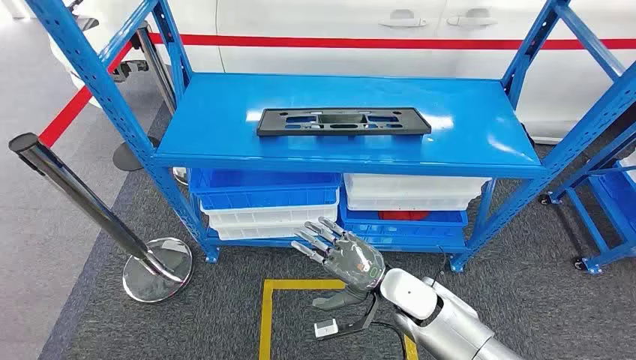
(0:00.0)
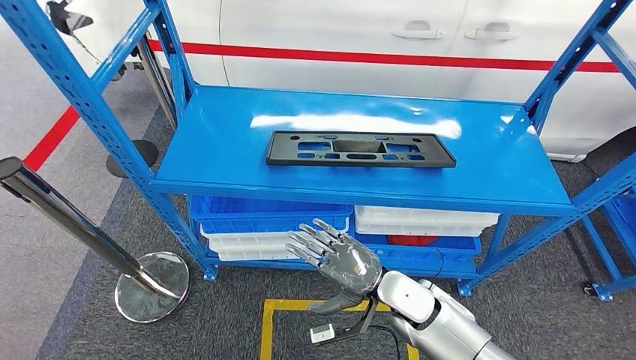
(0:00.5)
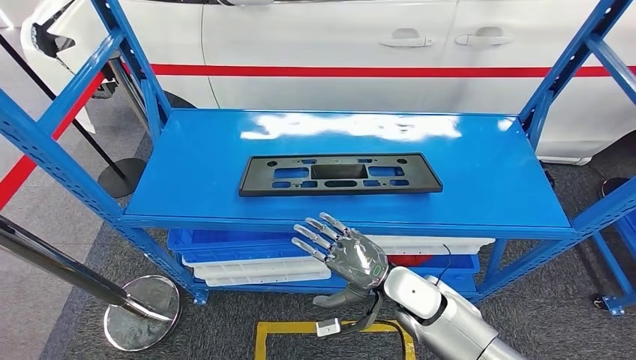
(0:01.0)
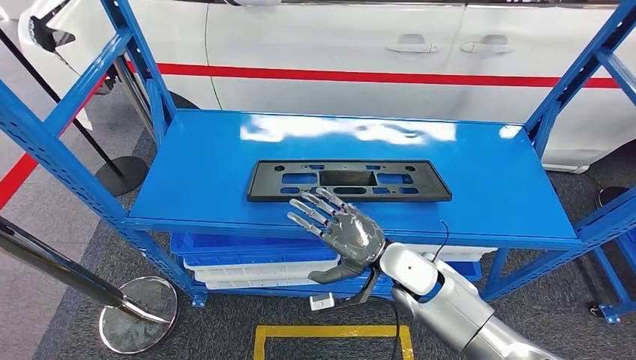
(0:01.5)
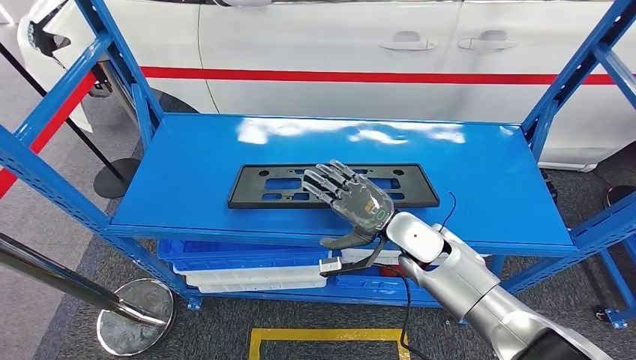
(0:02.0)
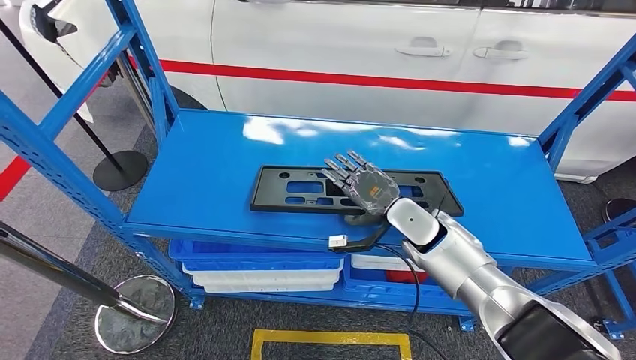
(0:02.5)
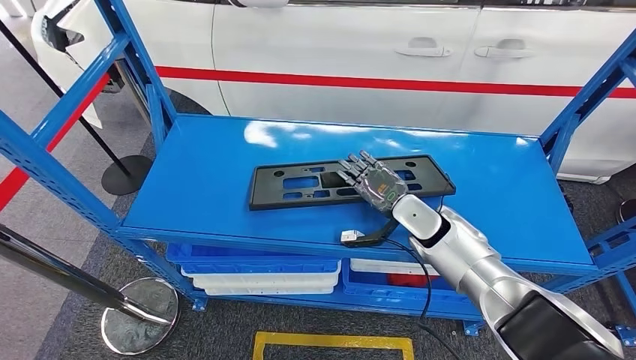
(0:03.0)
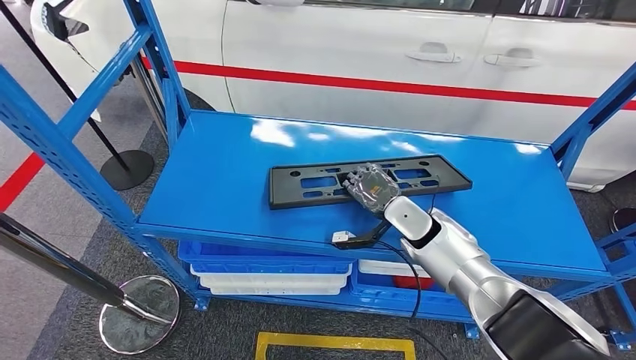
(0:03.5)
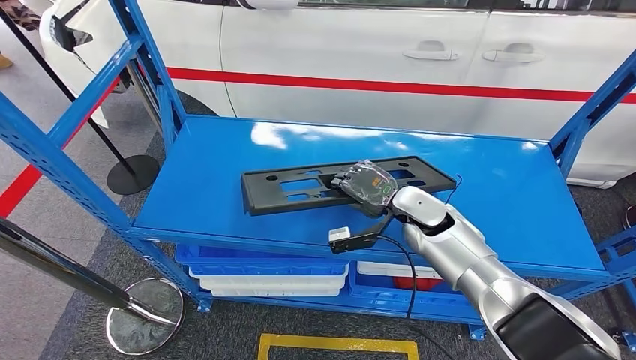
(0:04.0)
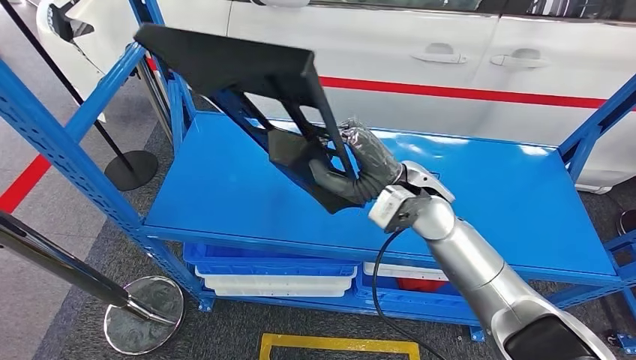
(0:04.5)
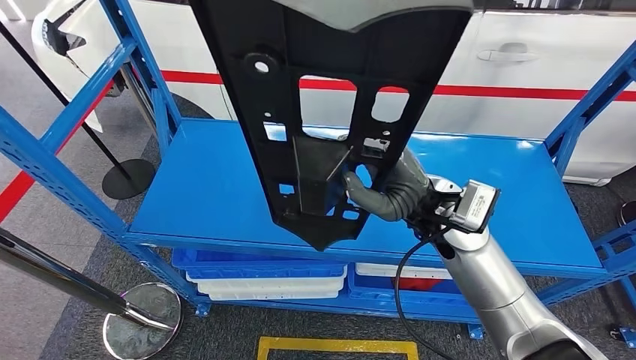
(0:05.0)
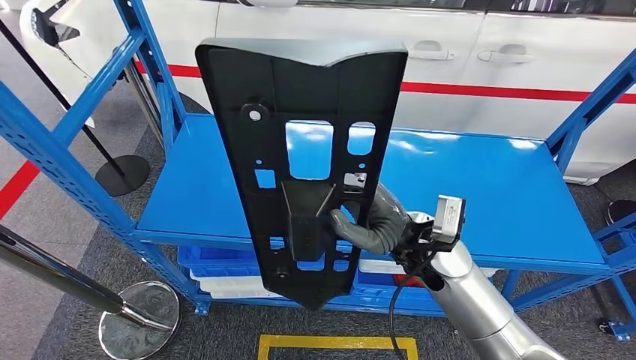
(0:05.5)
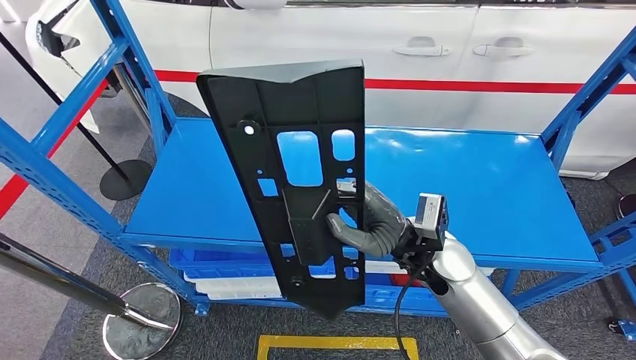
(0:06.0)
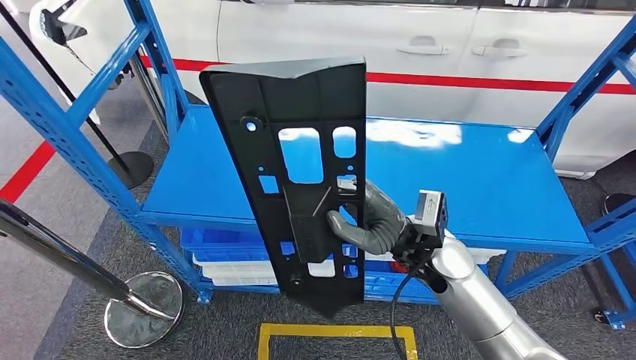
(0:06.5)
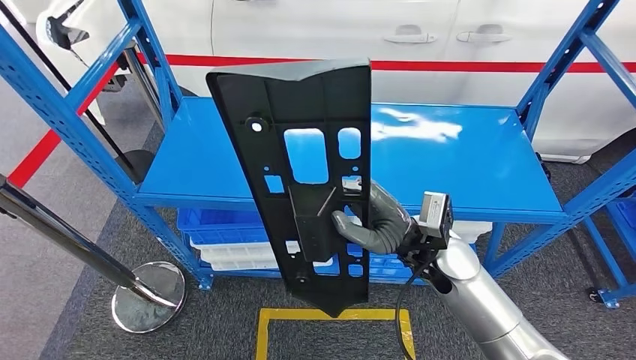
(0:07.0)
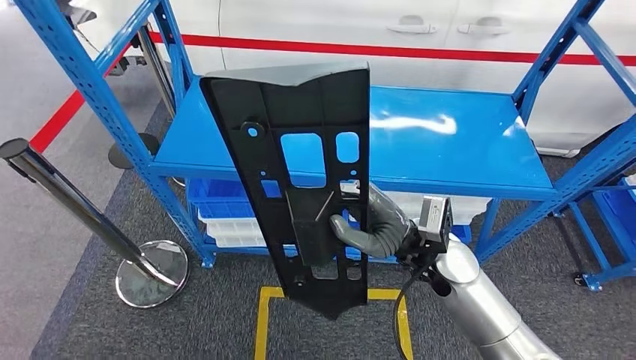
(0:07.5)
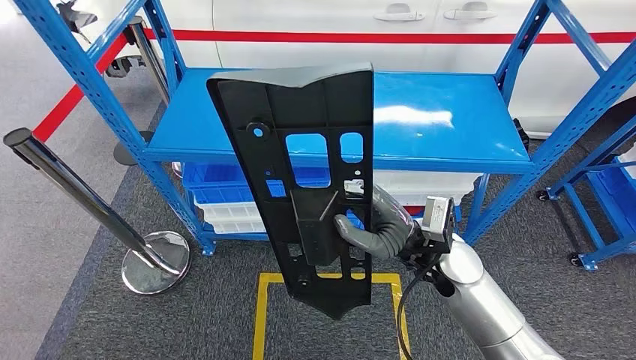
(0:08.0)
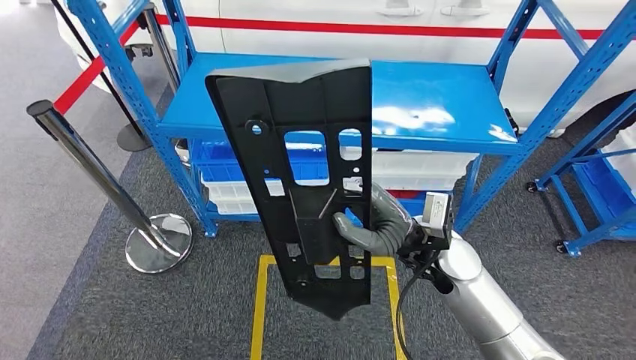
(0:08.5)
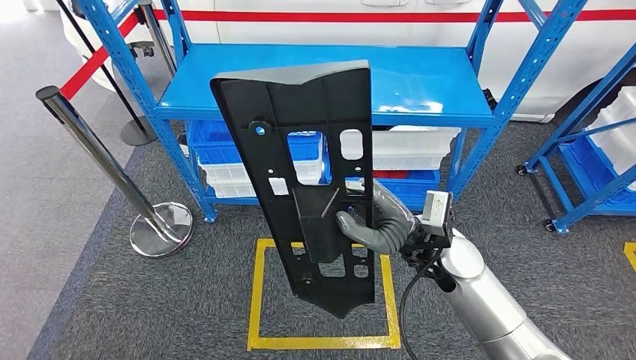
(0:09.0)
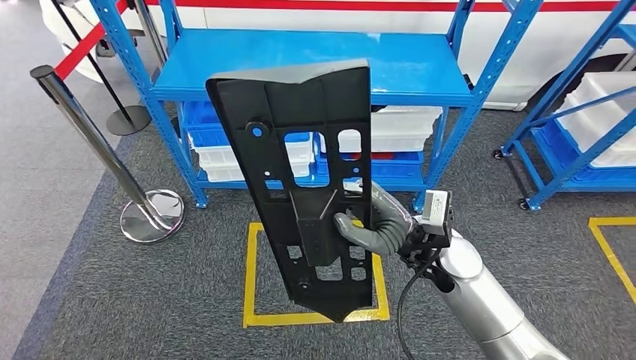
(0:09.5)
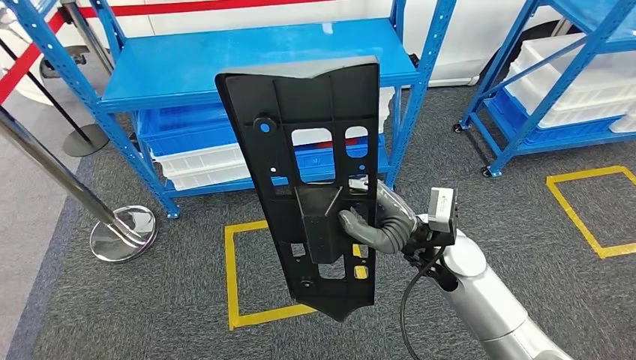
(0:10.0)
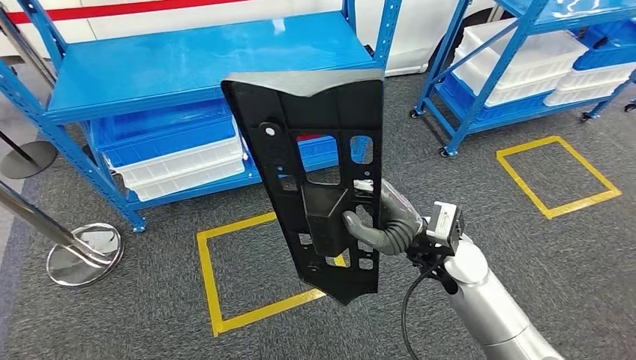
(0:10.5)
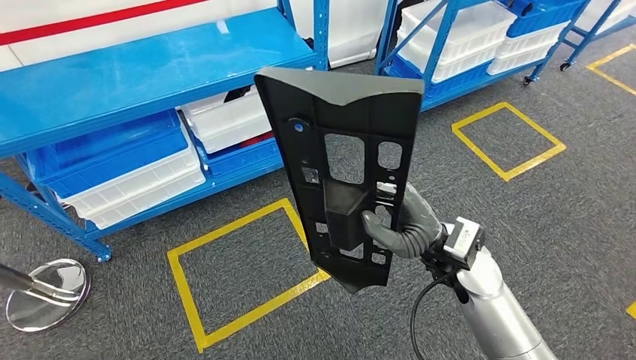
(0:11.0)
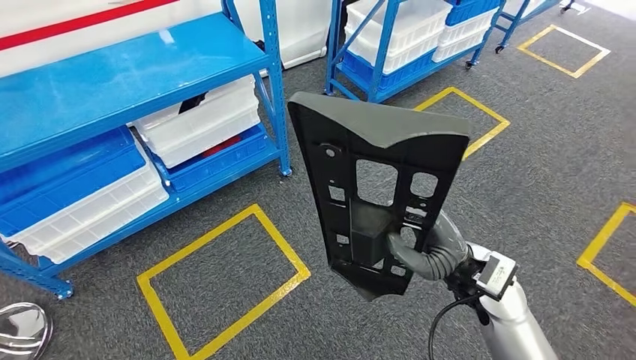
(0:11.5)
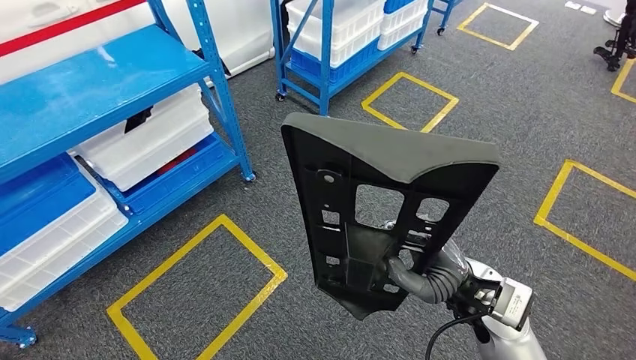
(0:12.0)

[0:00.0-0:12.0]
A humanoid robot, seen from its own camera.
Step, 0:00.0 to 0:04.0: Pick up the large material from the shelf.

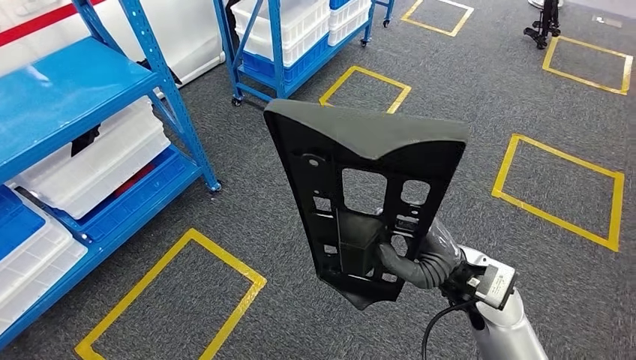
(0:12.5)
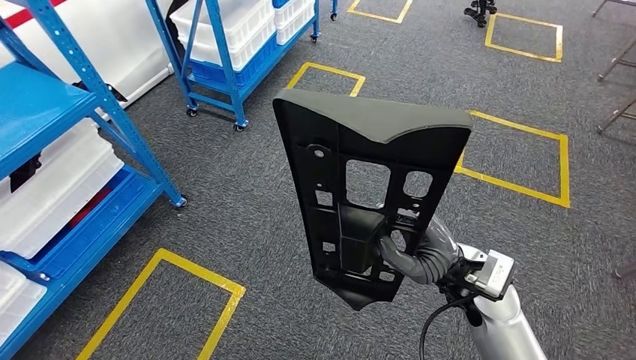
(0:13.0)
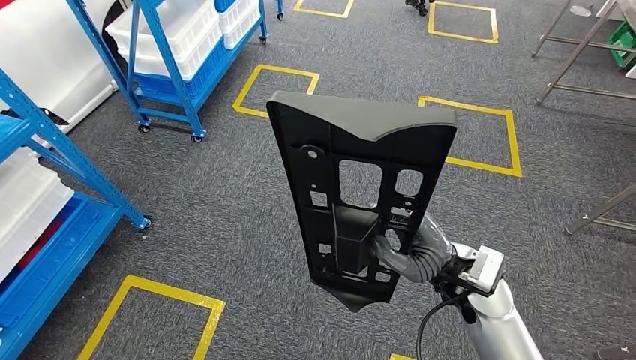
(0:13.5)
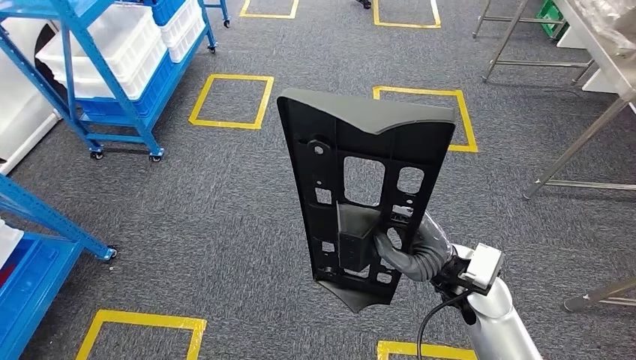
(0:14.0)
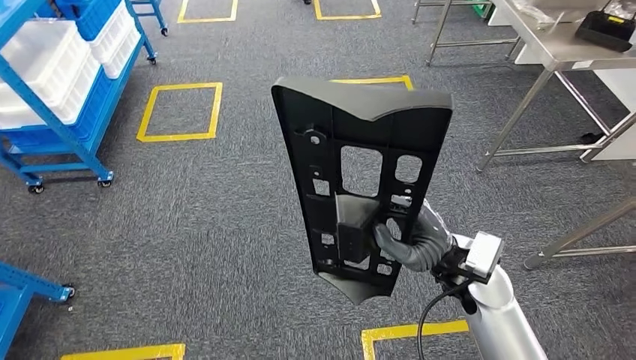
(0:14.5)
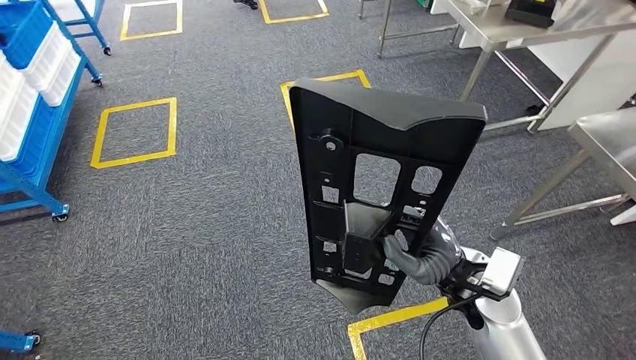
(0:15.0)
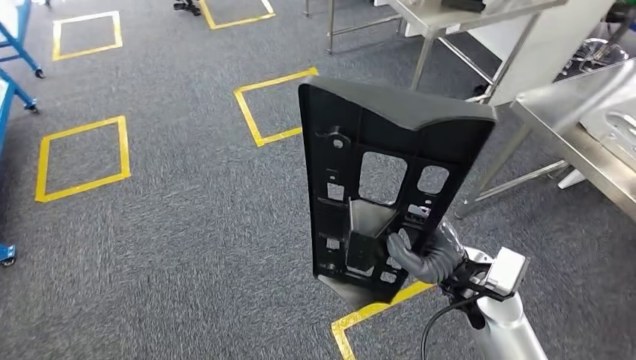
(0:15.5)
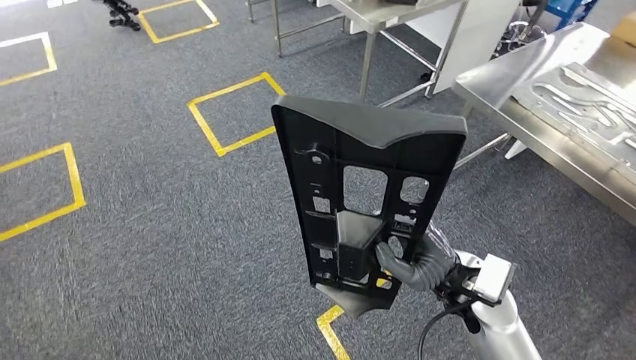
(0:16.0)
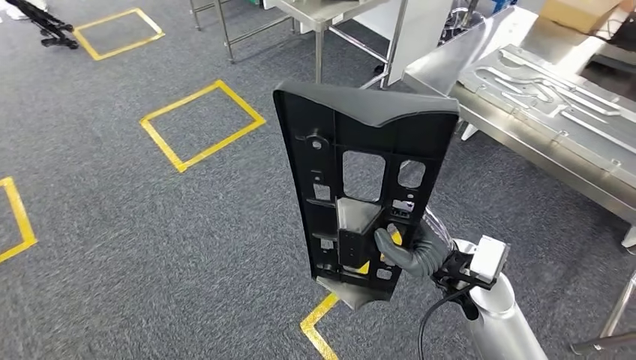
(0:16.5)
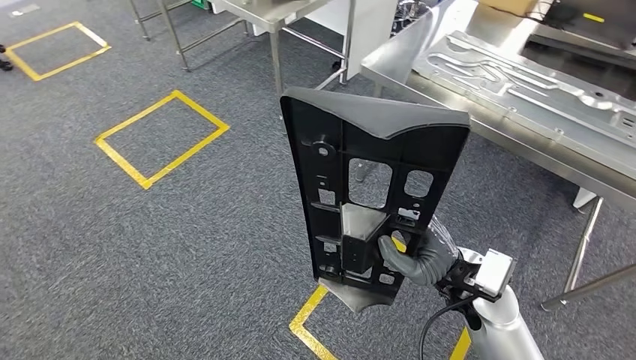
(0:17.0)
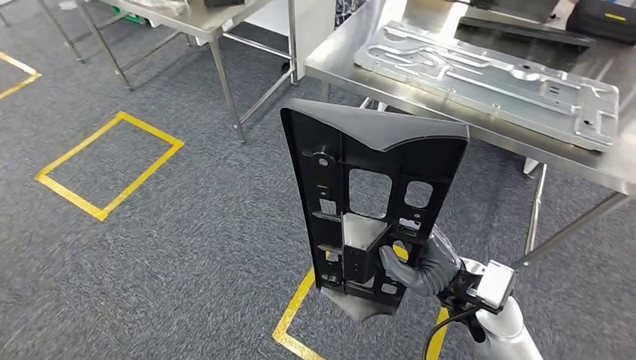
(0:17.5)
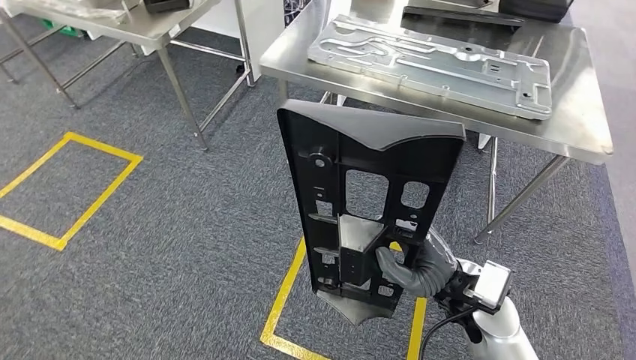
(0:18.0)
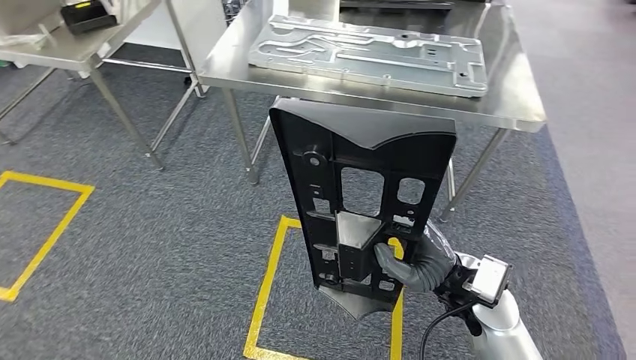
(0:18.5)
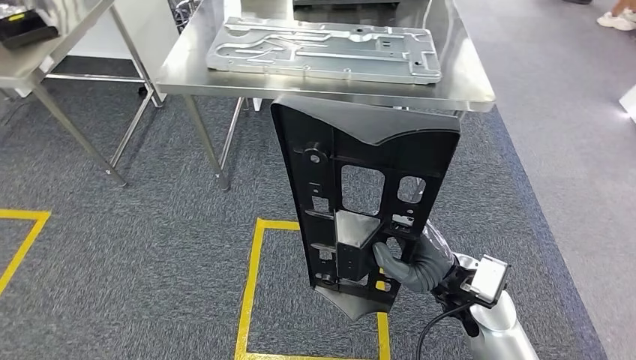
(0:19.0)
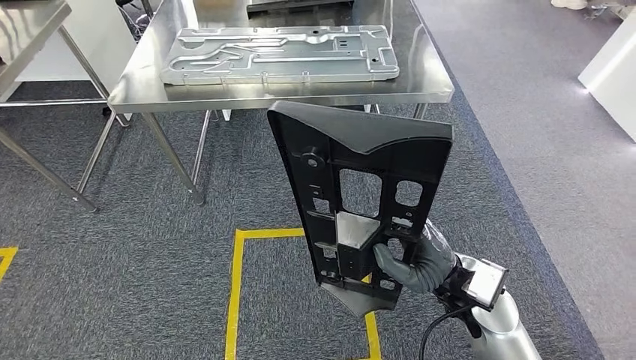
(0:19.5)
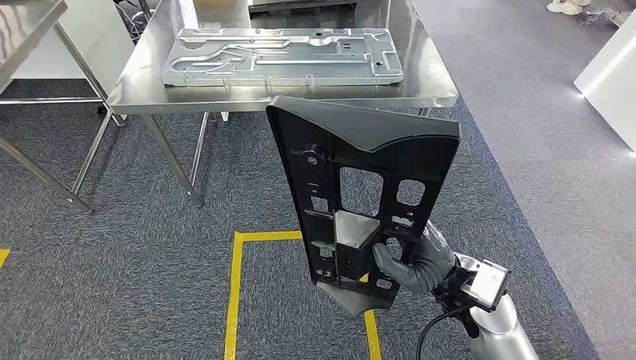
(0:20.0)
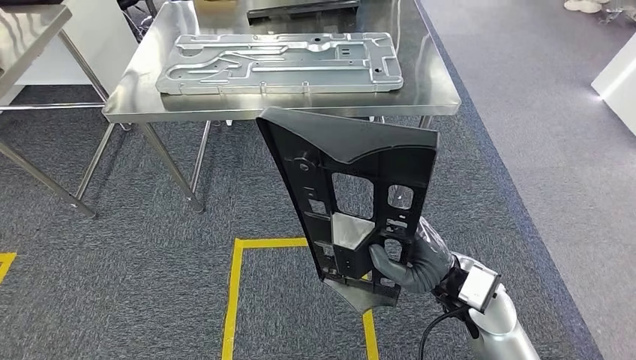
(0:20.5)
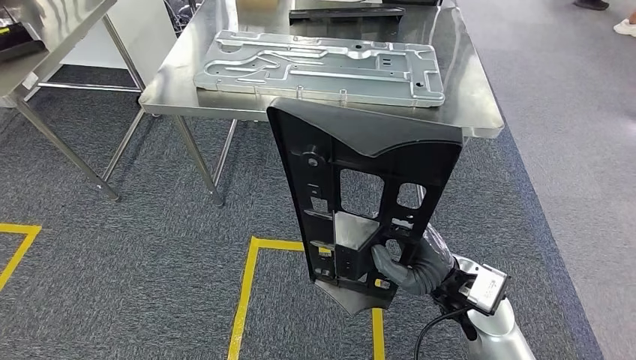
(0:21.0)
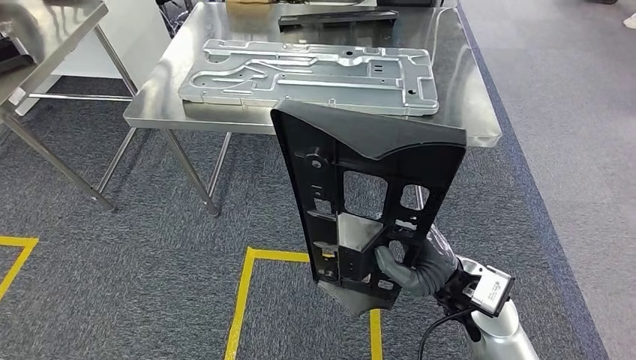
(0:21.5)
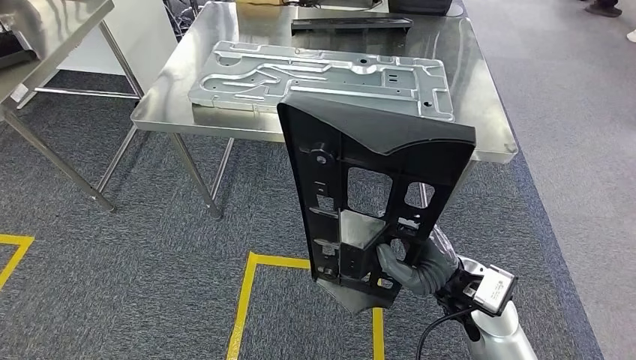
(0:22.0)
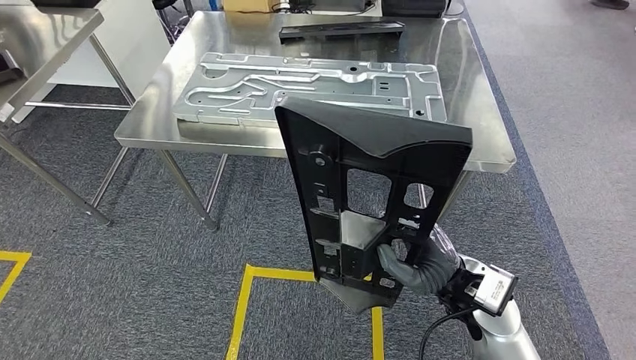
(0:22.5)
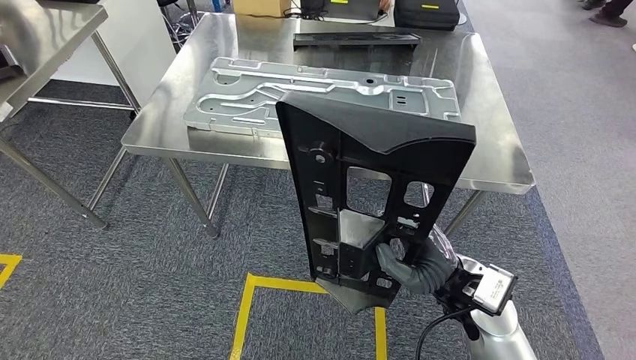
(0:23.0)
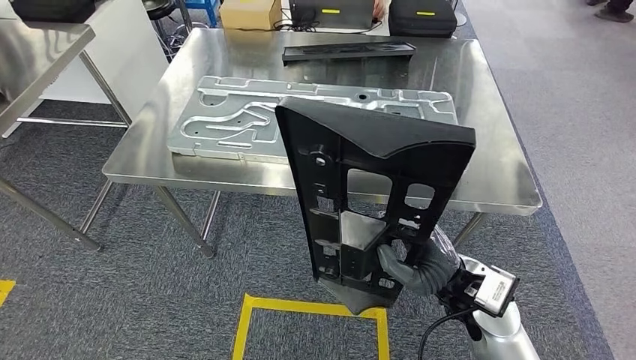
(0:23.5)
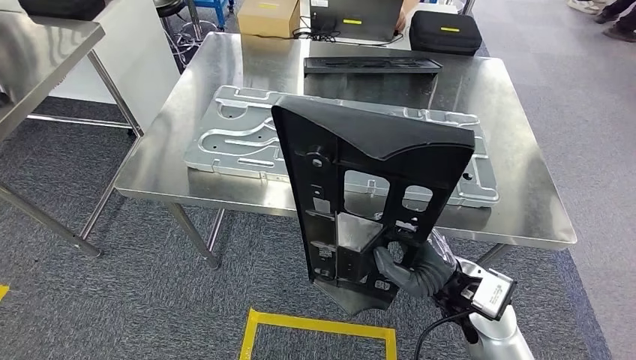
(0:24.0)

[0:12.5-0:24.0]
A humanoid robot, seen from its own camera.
Step, 0:12.5 to 0:22.5: Move the large material to the workbench.
